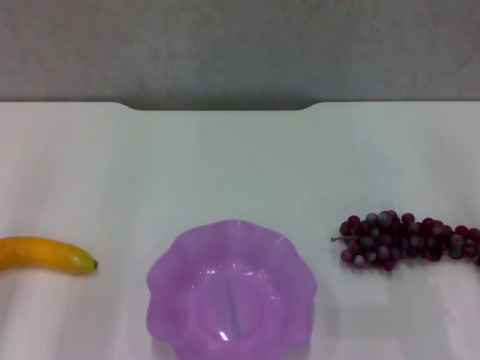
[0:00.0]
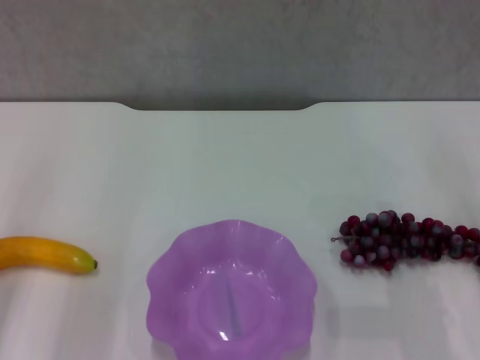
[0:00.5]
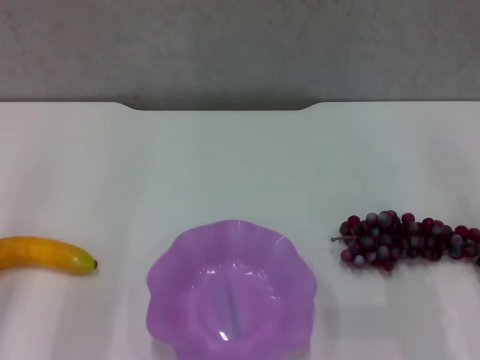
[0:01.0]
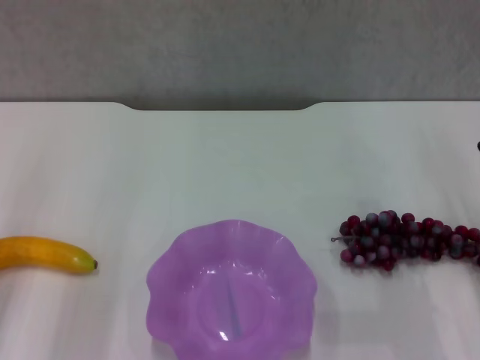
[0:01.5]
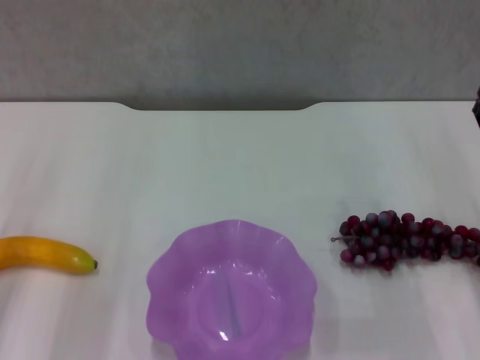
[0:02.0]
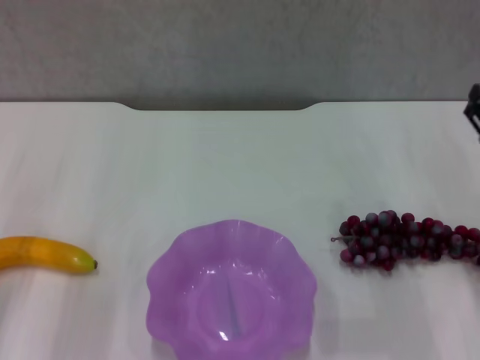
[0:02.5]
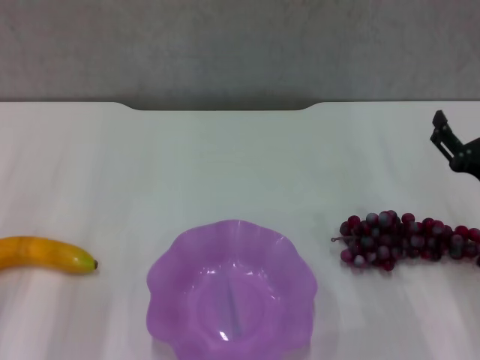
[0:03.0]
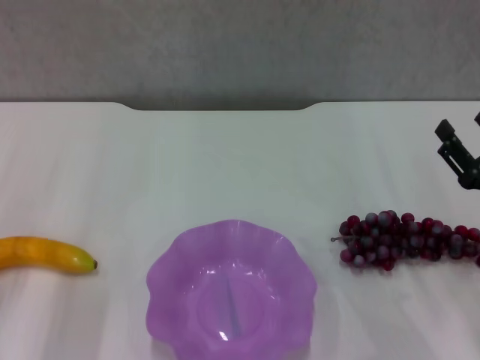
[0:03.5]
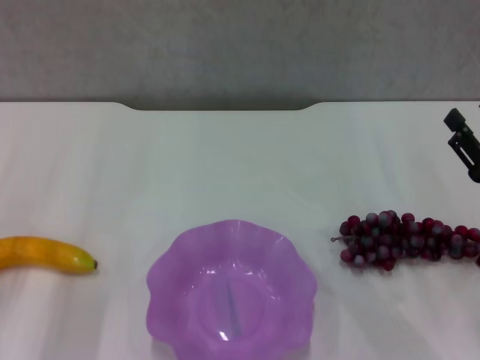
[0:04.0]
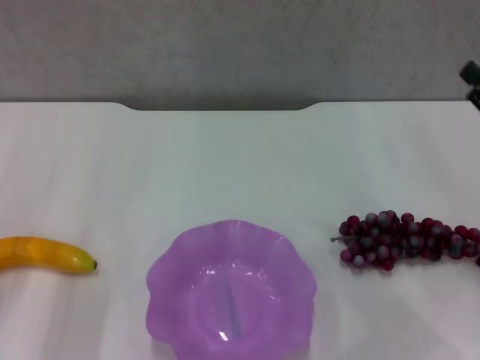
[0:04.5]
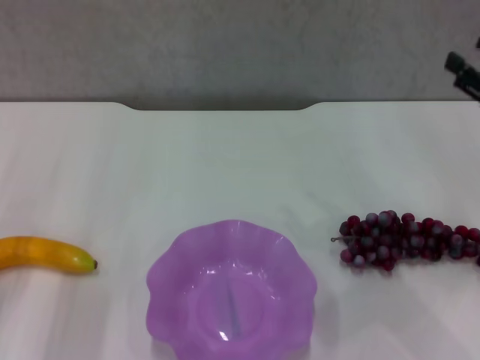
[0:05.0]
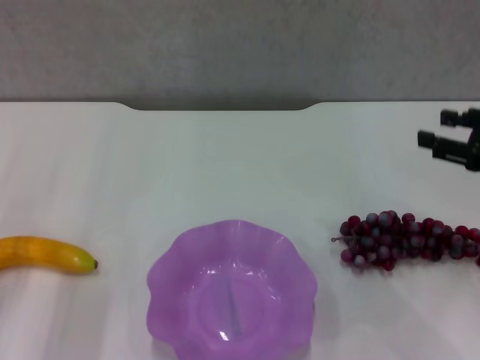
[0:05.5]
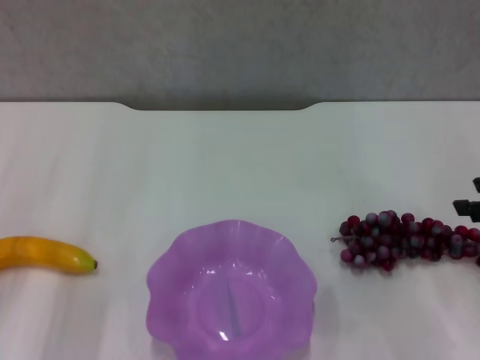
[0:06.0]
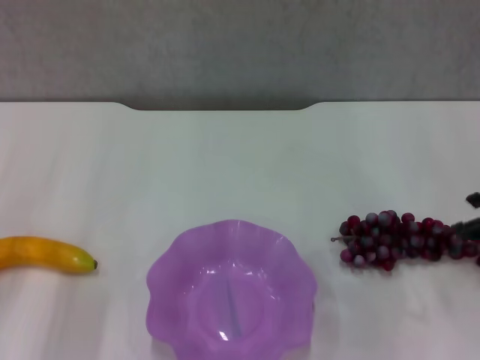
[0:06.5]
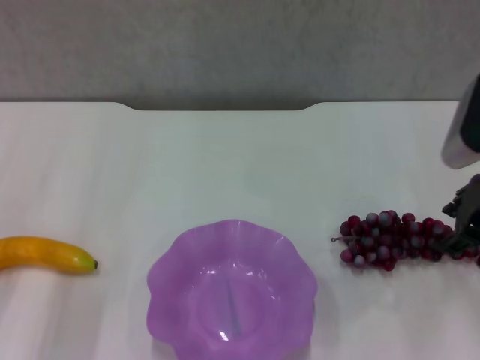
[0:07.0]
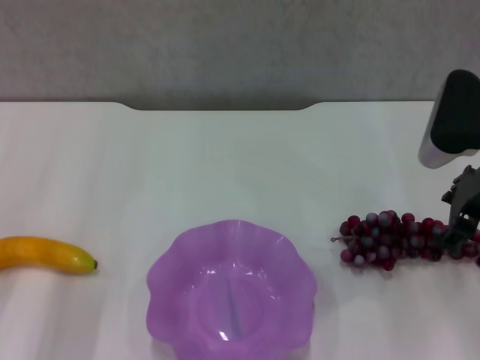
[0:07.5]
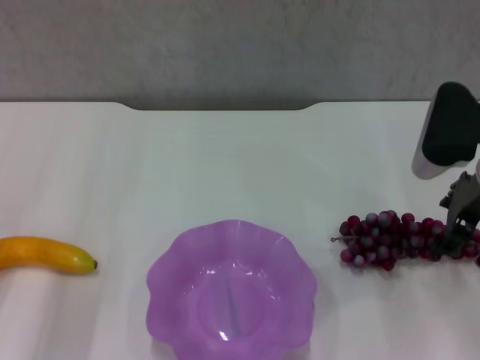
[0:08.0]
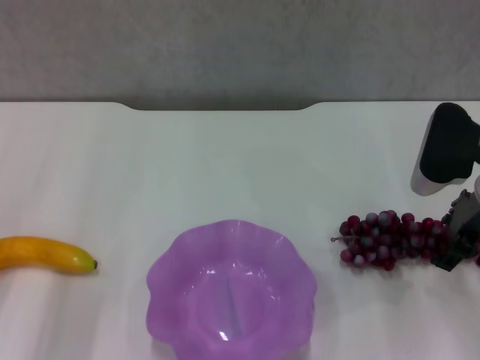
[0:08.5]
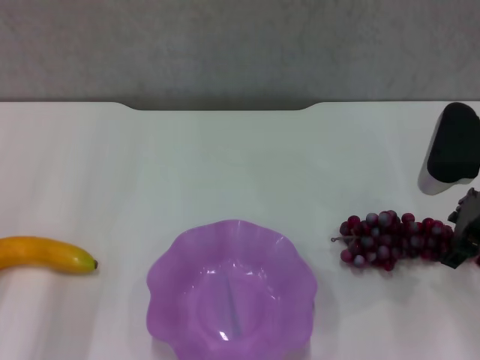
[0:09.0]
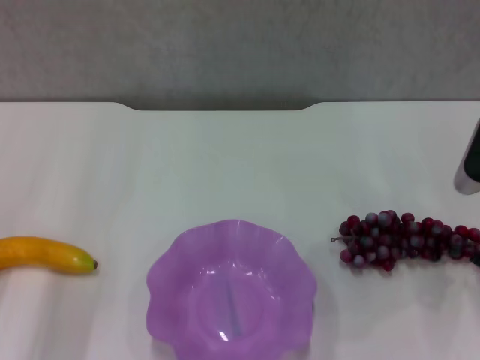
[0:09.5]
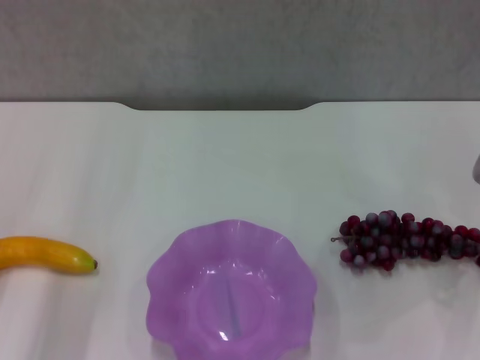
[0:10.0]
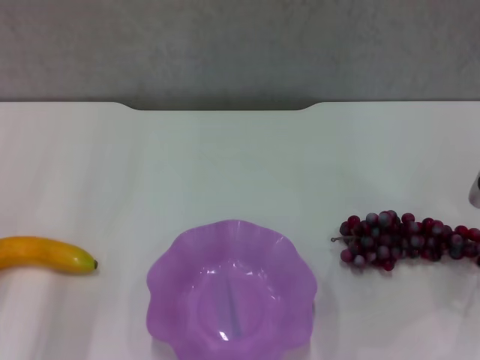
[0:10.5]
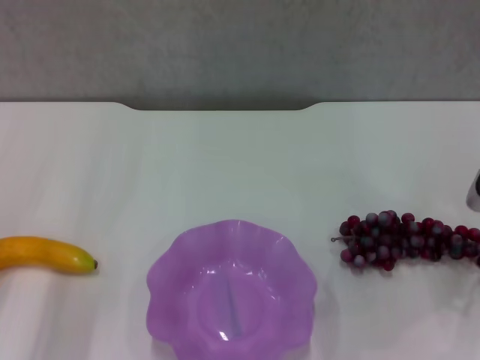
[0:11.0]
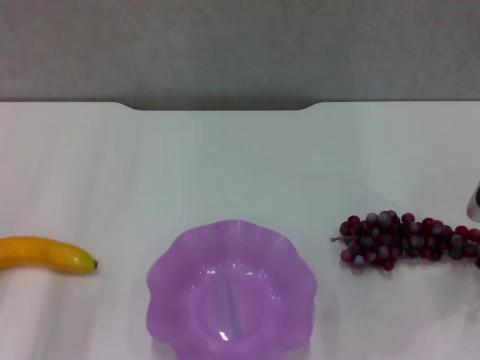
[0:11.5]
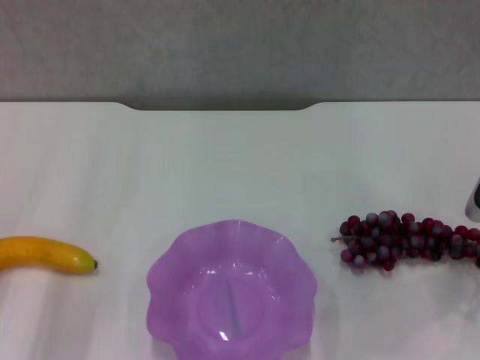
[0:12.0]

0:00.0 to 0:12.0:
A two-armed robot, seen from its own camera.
0:04.0 to 0:06.0: The right gripper goes some 10 cm upward.
0:06.0 to 0:08.0: The right gripper travels to the left and forward by some 10 cm.
0:08.0 to 0:10.0: The right gripper goes roughly 5 cm to the right.

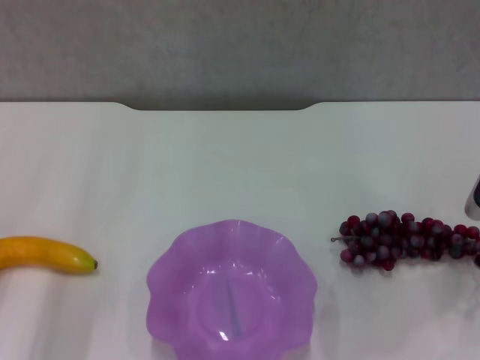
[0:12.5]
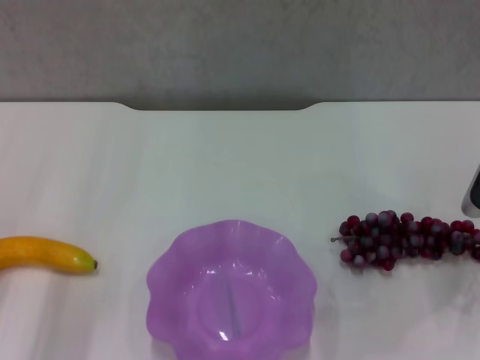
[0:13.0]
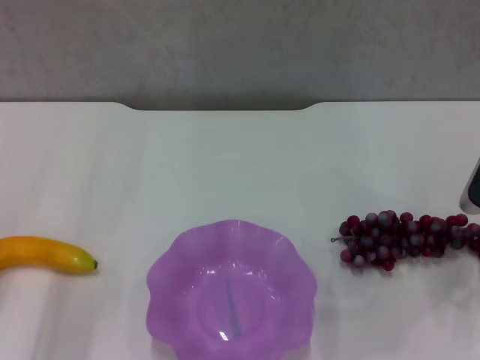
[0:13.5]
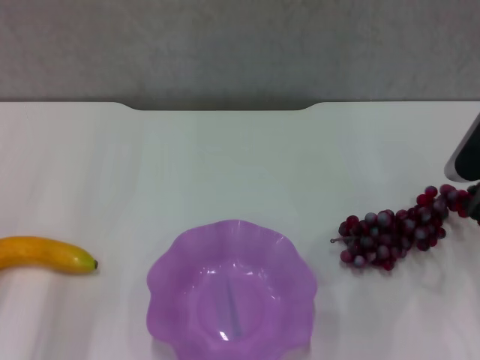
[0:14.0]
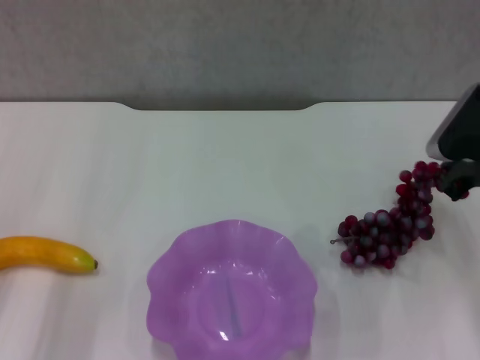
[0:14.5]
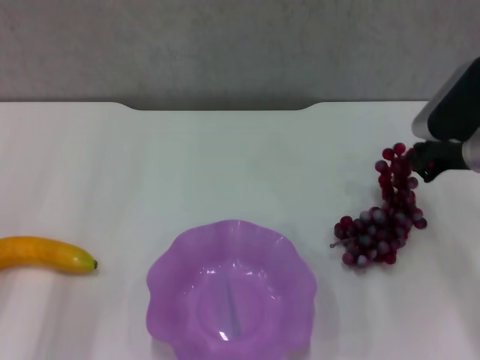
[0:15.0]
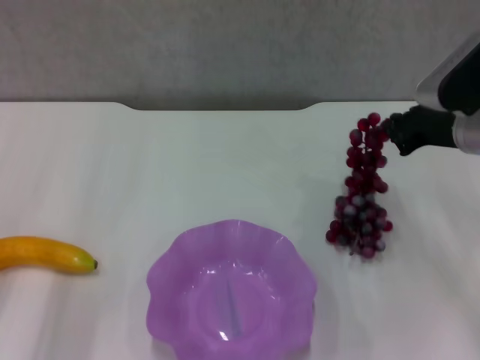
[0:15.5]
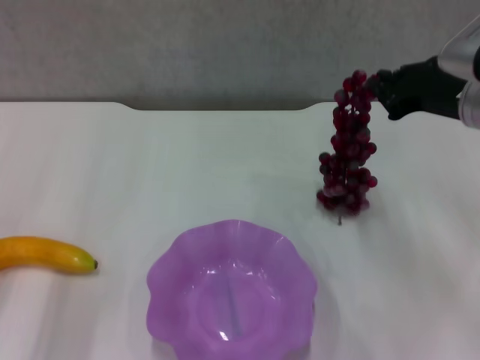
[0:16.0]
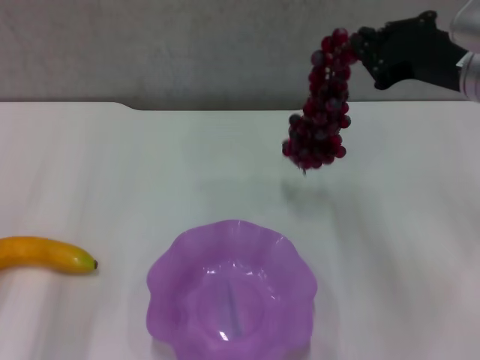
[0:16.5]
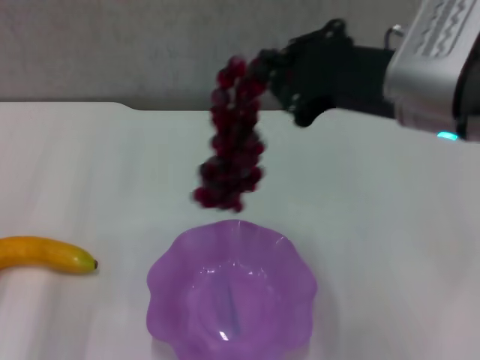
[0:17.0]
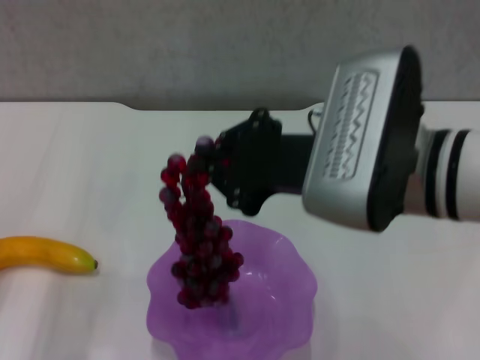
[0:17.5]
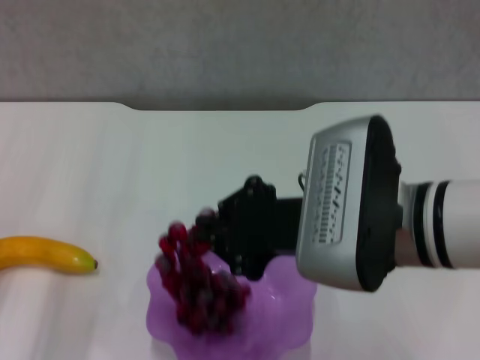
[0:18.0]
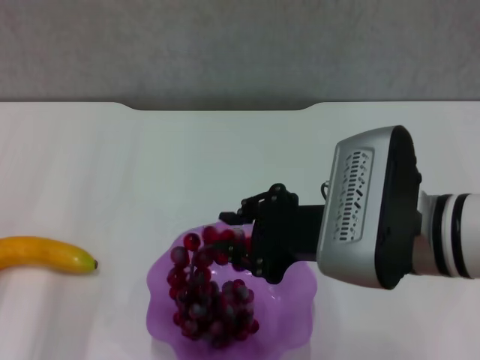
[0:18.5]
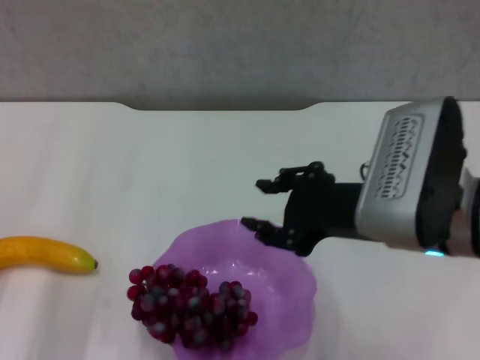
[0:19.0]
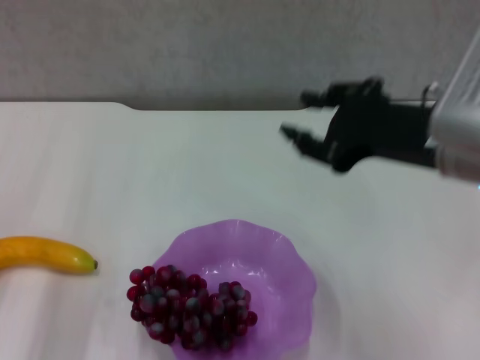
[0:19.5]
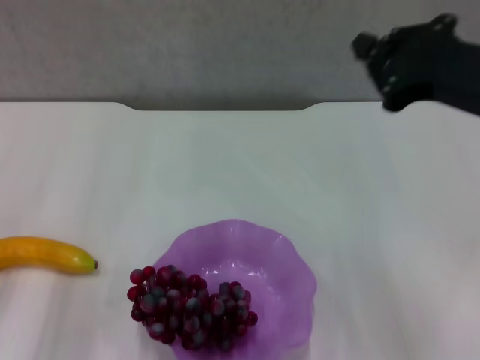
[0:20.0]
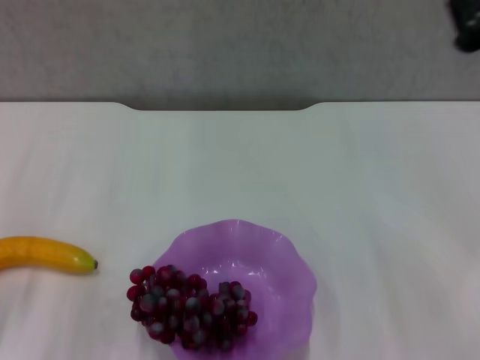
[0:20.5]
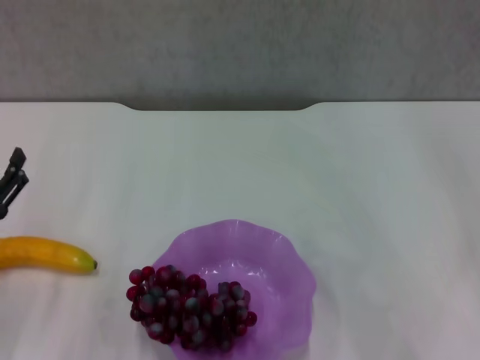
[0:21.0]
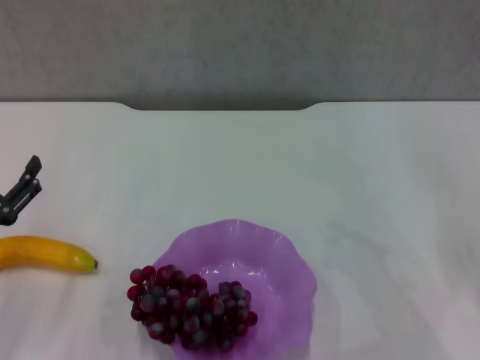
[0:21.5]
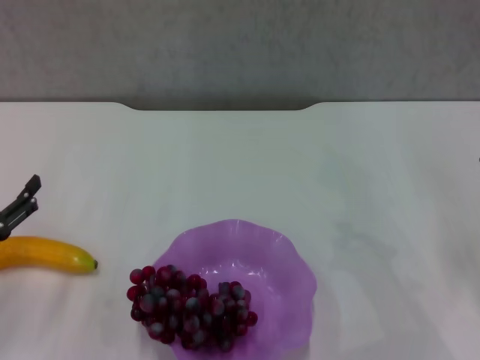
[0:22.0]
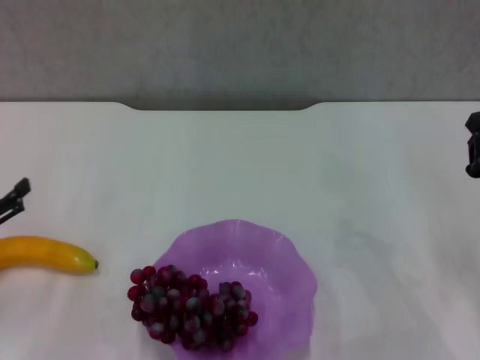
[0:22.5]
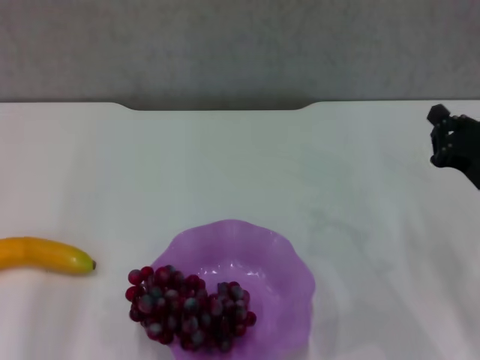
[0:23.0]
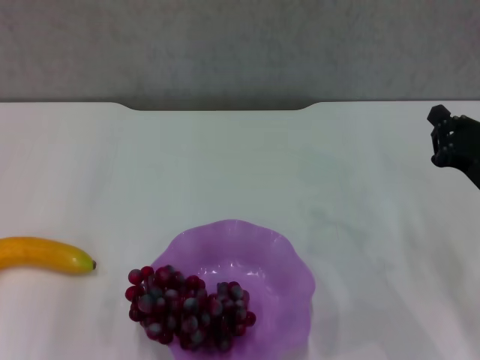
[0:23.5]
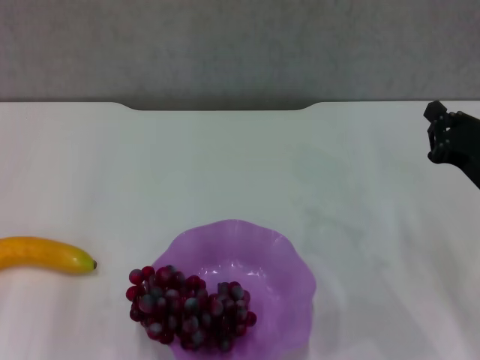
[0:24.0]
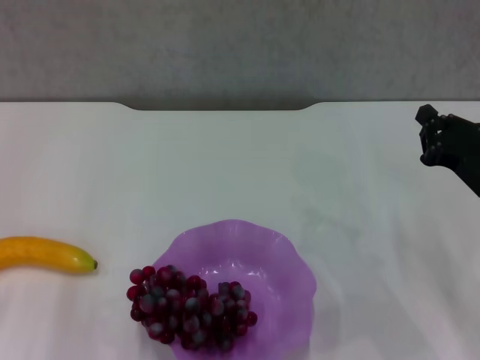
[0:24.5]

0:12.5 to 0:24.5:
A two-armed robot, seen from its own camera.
Step, 0:13.5 to 0:19.0: Place the grape in the purple plate with right gripper.
0:12.5 to 0:14.5: The right gripper changes place by about 5 cm.
0:14.5 to 0:16.5: The right gripper travels upward and to the left by roughly 15 cm.
0:16.5 to 0:18.5: The right gripper shifts roughly 15 cm backward, to the left and downward.
0:18.5 to 0:20.5: The right gripper moves to the right and upward, some 15 cm, and opens and closes again.
0:20.5 to 0:22.5: The right gripper travels downward by about 20 cm.
0:22.5 to 0:24.5: The left gripper goes roughly 15 cm upward.

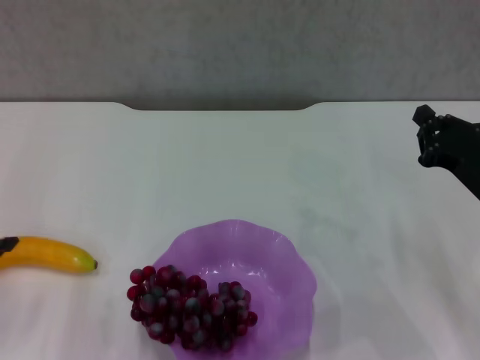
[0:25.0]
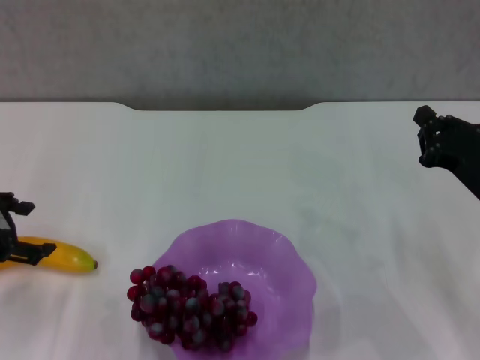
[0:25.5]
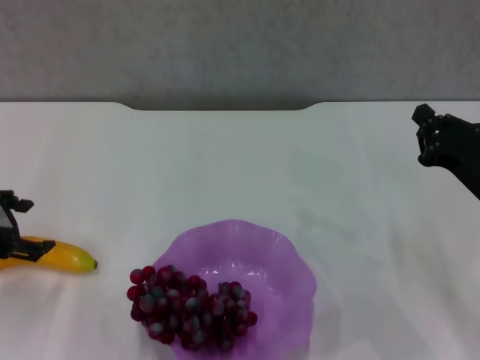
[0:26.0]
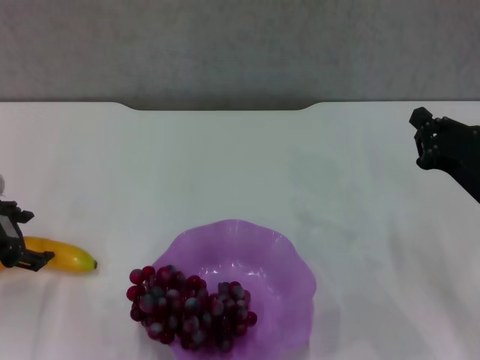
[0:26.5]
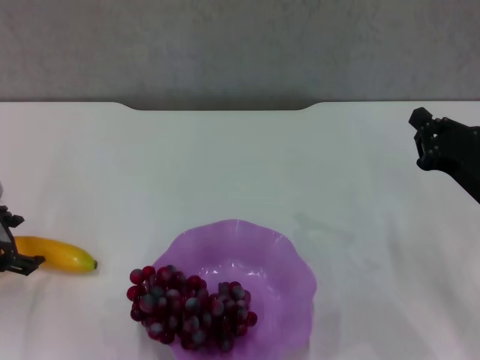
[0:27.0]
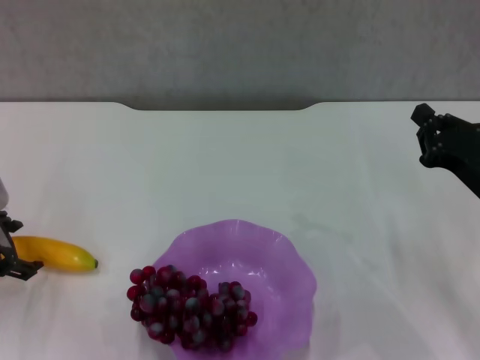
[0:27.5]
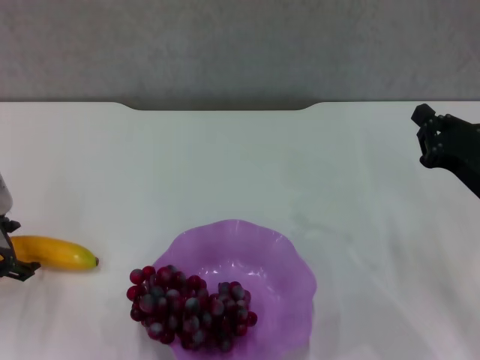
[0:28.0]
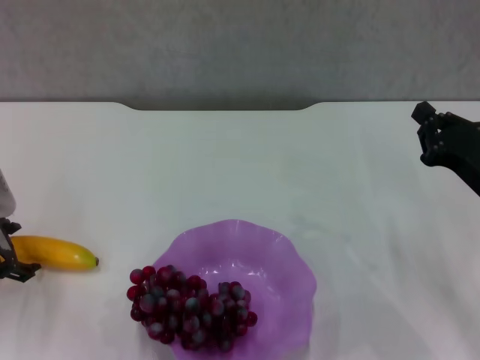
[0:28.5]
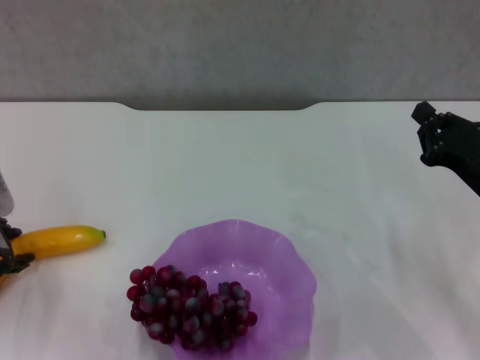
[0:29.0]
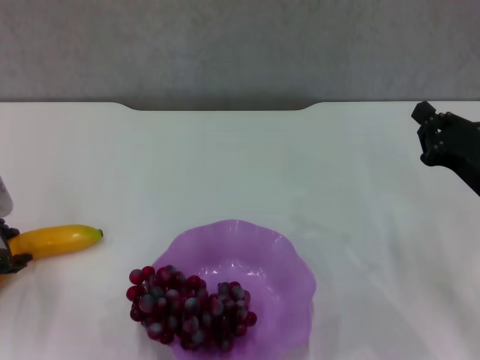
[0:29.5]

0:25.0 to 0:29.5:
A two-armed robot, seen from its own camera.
0:25.0 to 0:27.0: The left gripper heads downward and forward, covering about 10 cm.
0:27.0 to 0:29.5: There are only small adjustments of the grippers.
